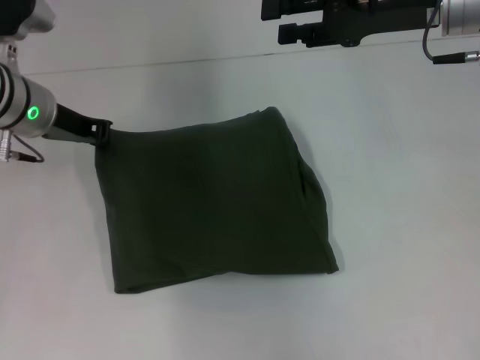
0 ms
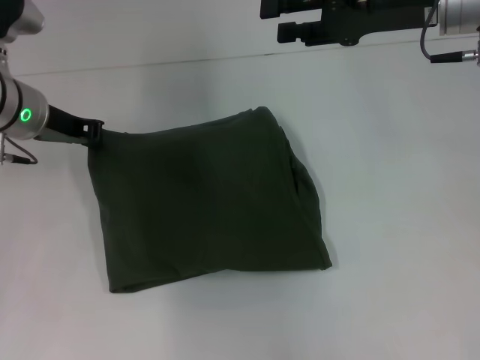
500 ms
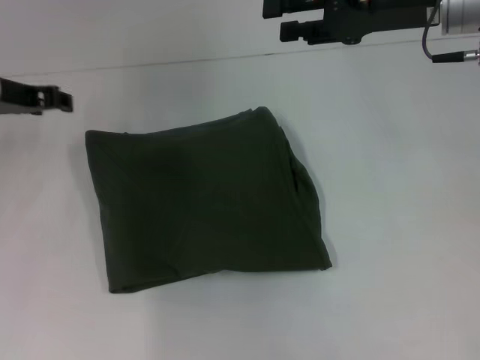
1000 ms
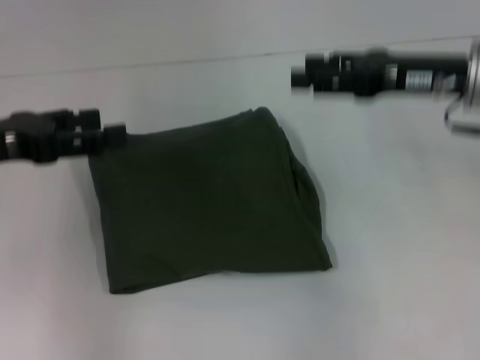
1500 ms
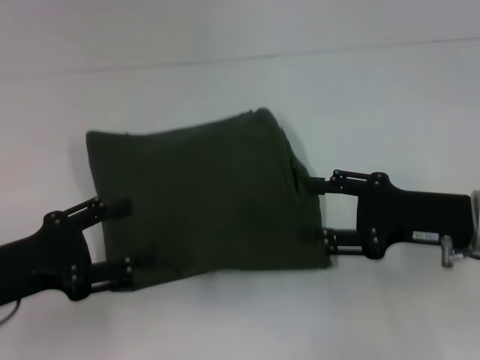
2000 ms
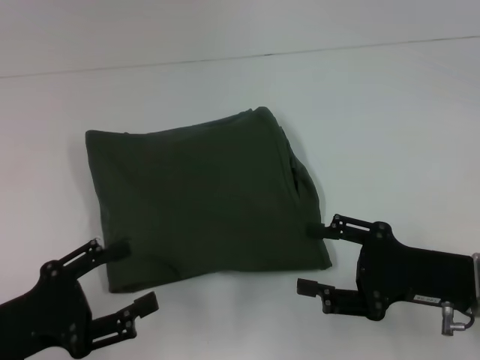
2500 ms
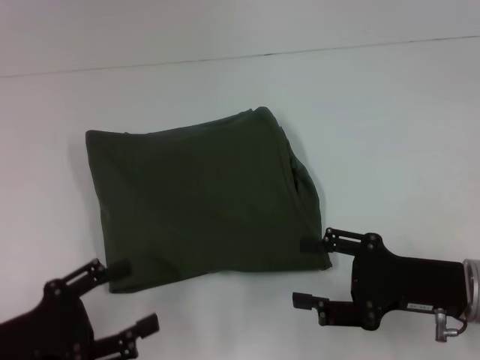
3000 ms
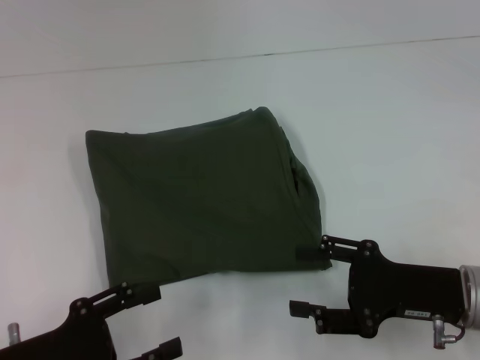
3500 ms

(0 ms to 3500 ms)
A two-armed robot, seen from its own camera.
0 ms - 2000 ms: The right gripper moves backward and downward, approximately 20 cm. Meanwhile the left gripper is displaced backward by roughly 20 cm, and opens.
2000 ms - 3500 ms: The left gripper shifts about 10 cm backward and downward; the right gripper changes place by some 5 cm.

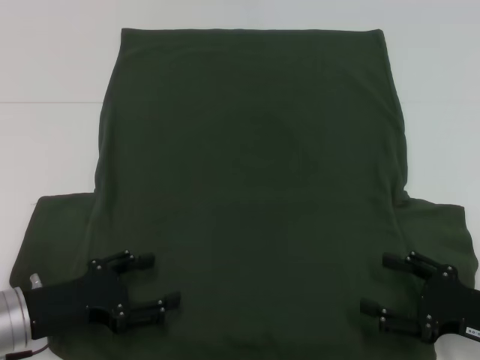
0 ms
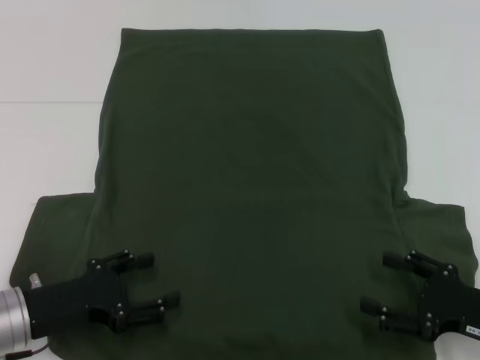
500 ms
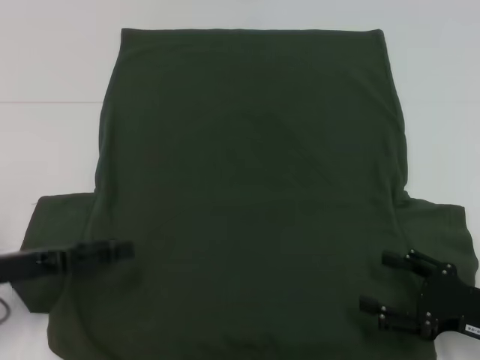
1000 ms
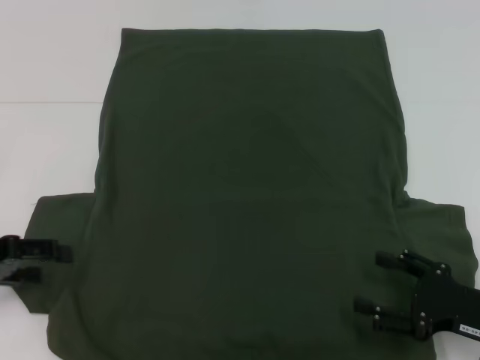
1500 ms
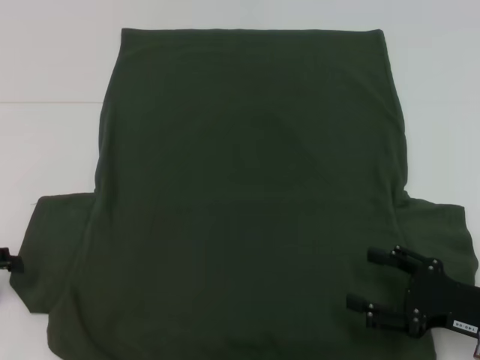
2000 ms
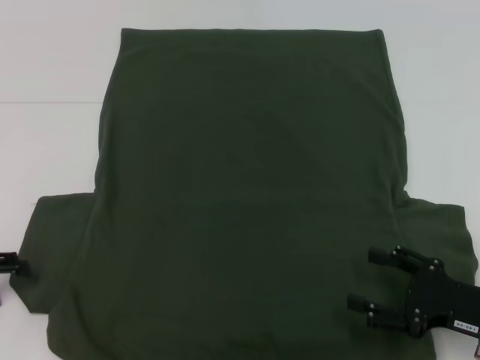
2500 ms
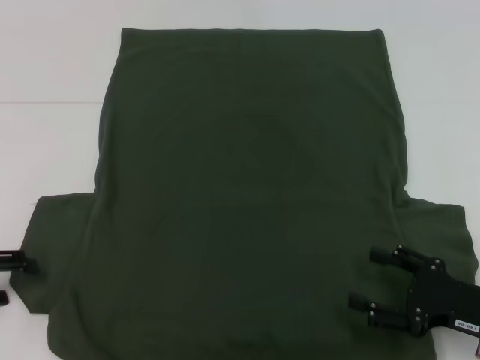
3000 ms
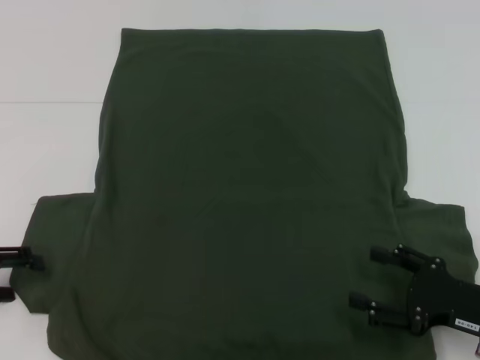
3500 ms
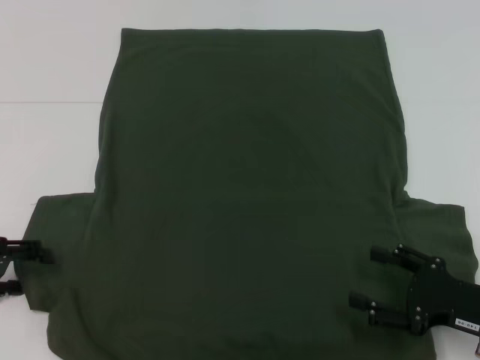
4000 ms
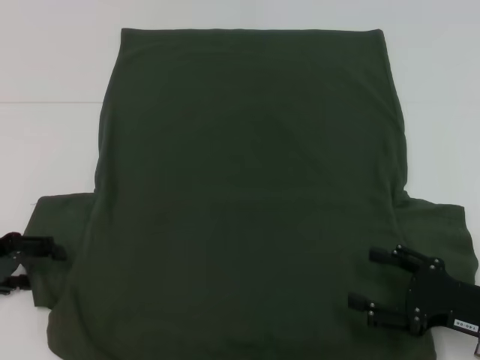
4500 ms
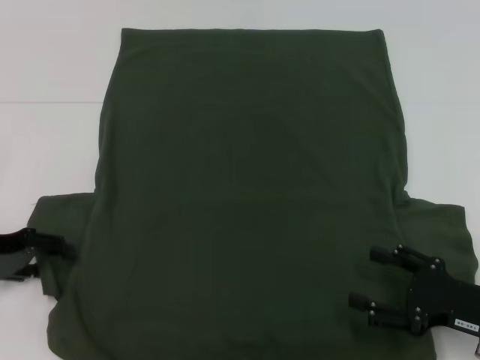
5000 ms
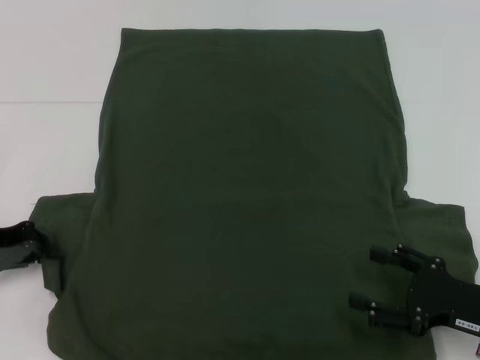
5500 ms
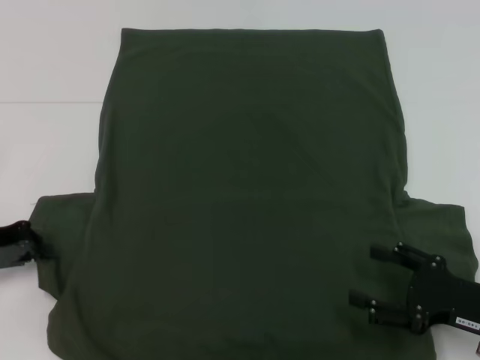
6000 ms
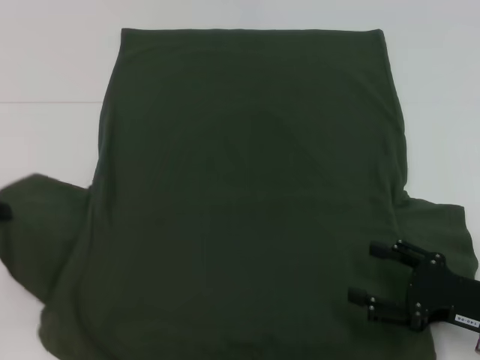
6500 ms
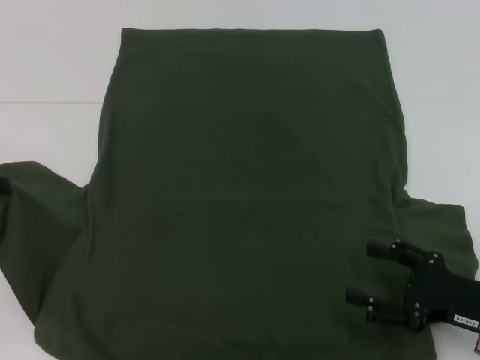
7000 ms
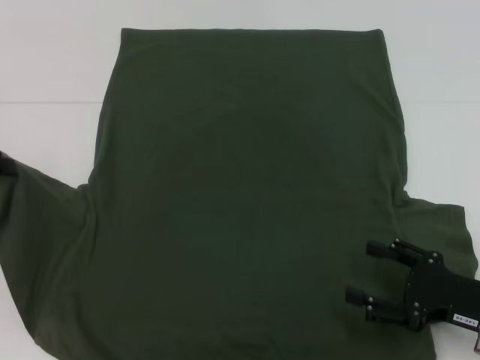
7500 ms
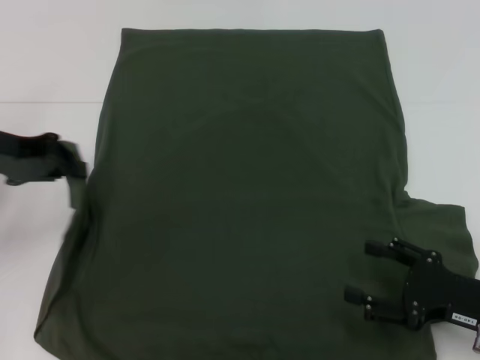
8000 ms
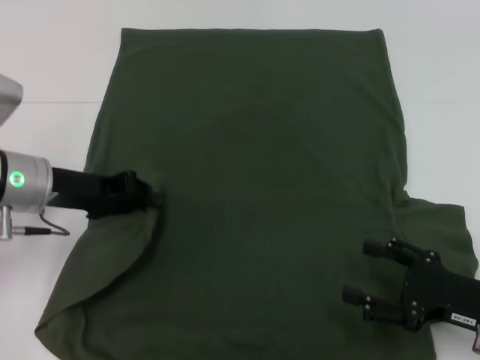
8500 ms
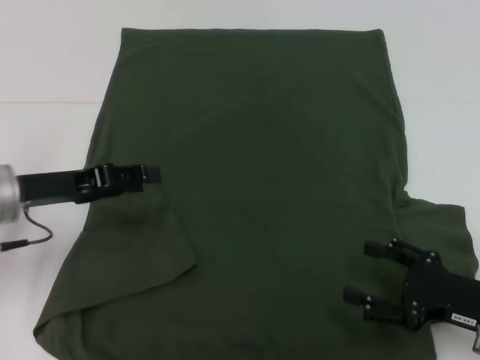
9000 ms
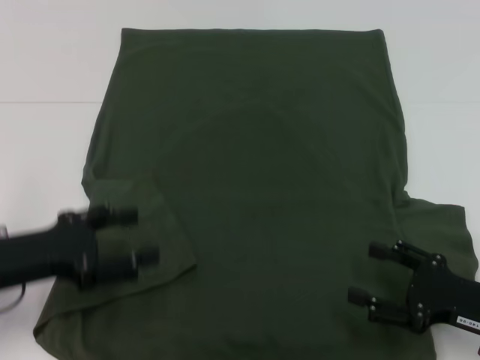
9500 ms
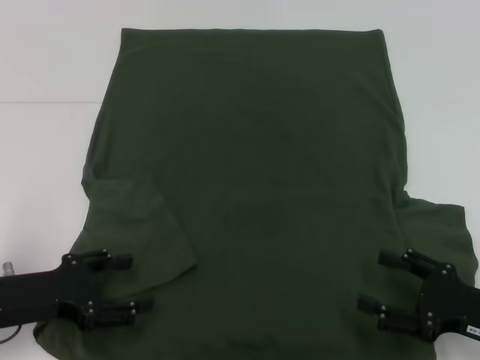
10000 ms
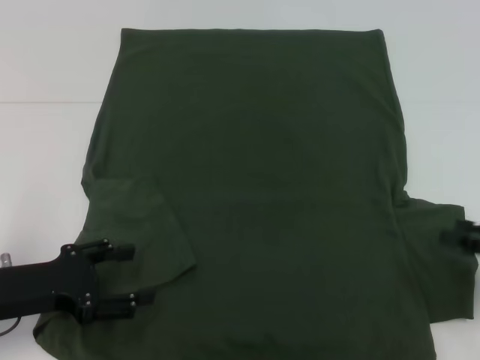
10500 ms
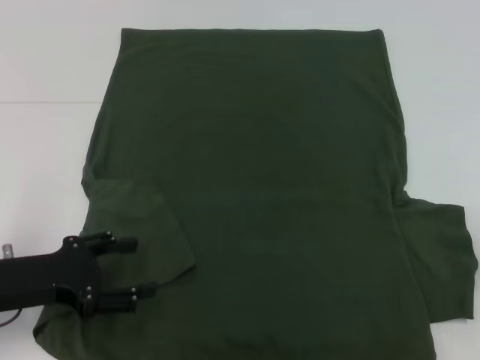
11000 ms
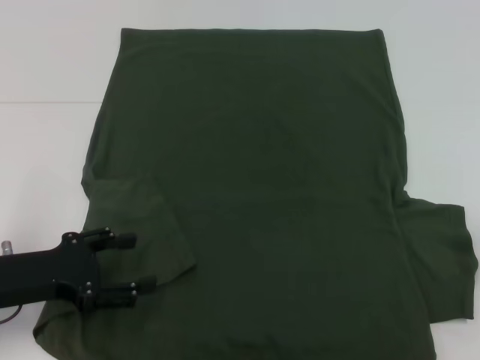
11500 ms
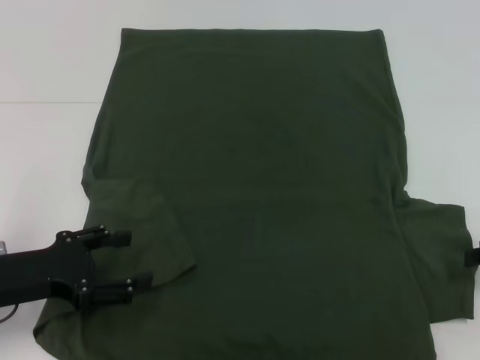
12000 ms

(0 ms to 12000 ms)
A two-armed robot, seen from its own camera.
Step, 0 ms - 8500 ms: Fold the bottom left sleeve with your left hand.
0 ms - 2000 ms: The left gripper goes approximately 15 cm to the left and upward.
2000 ms - 4000 ms: The grippers stay close to where they were, moving slightly.
4000 ms - 6000 ms: The left gripper closes its fingers.
6000 ms - 8000 ms: The left gripper shifts about 10 cm upward and forward.
8000 ms - 10000 ms: The left gripper travels backward and downward by roughly 15 cm, and opens.
10000 ms - 12000 ms: The right gripper heads to the right, upward and forward, covering about 15 cm.

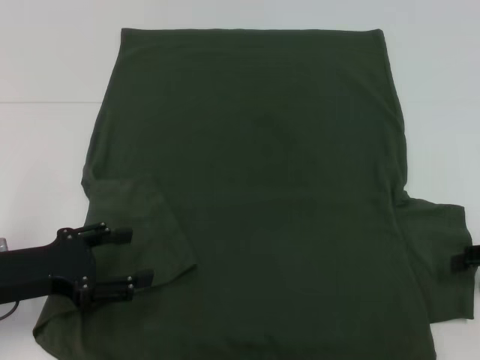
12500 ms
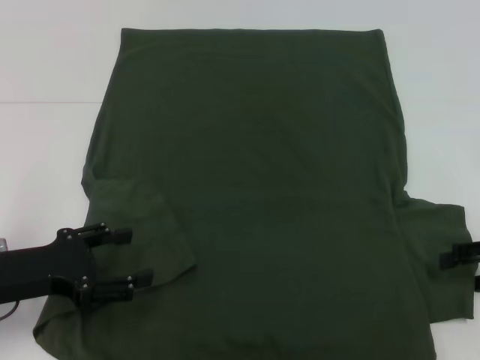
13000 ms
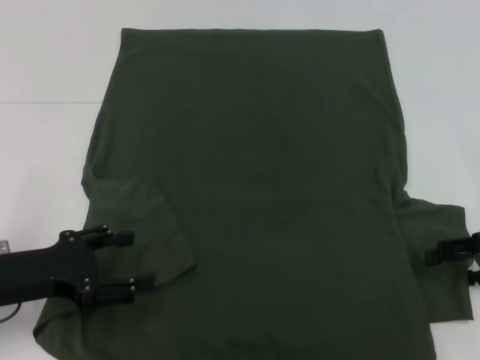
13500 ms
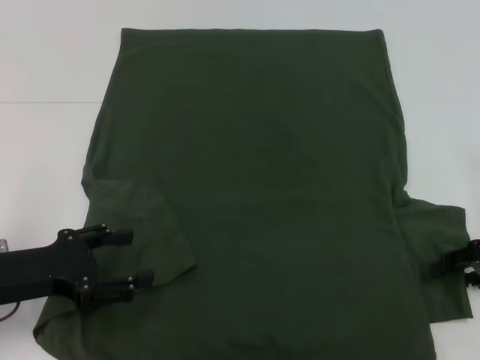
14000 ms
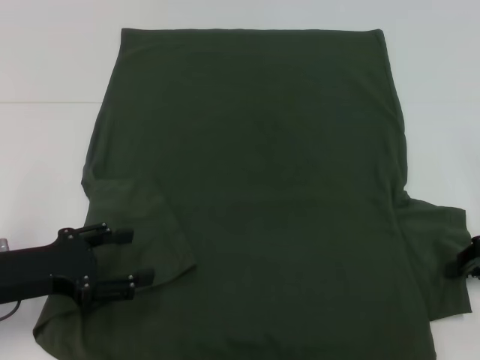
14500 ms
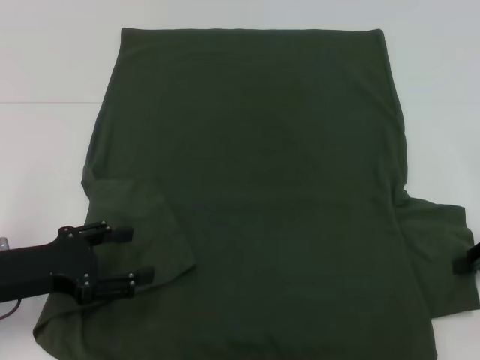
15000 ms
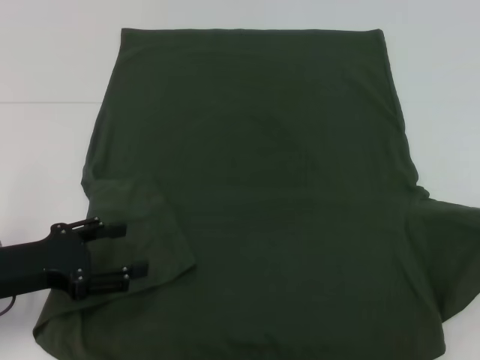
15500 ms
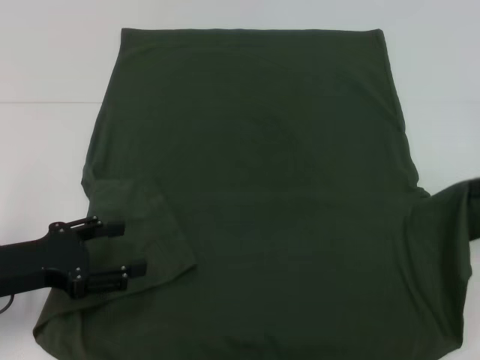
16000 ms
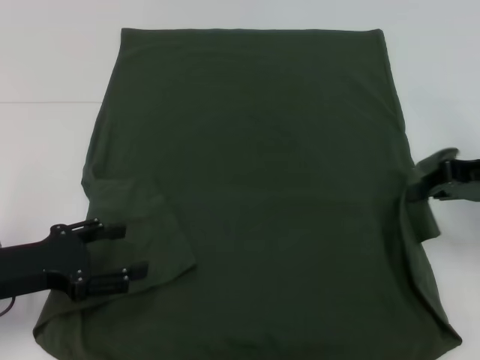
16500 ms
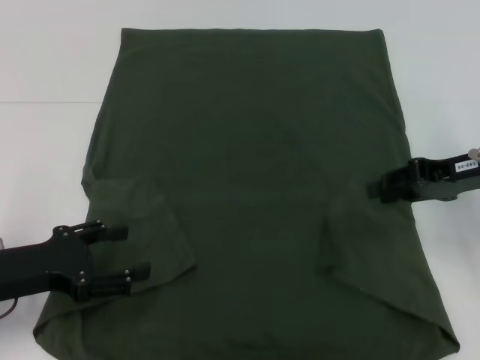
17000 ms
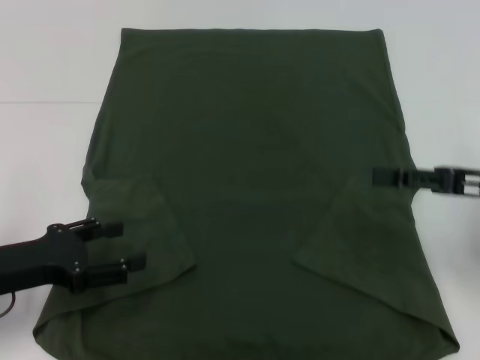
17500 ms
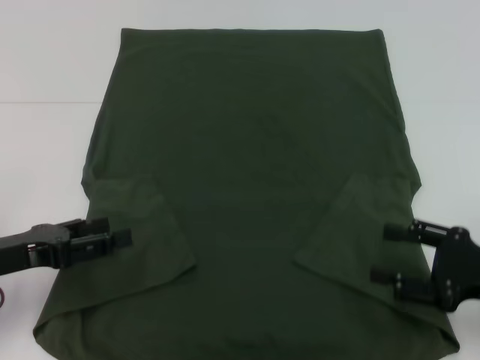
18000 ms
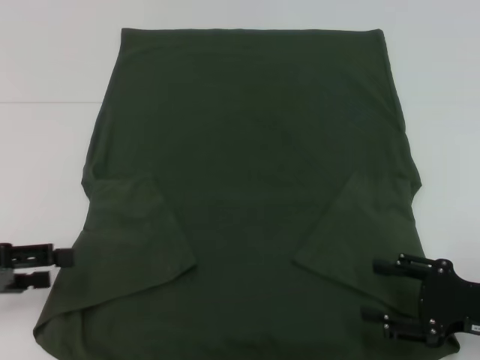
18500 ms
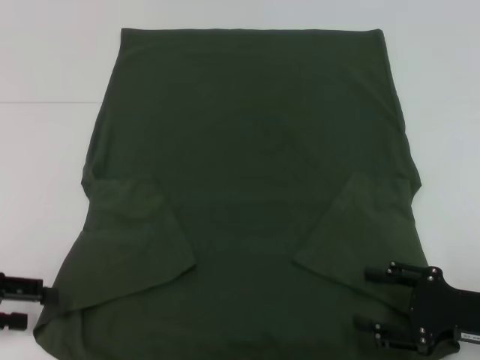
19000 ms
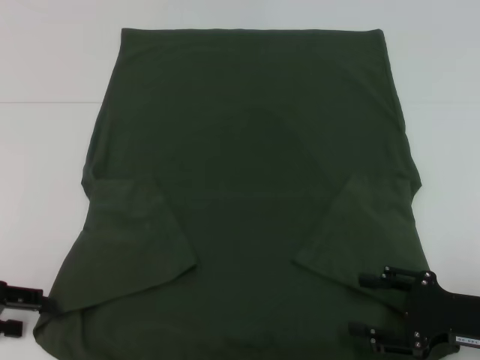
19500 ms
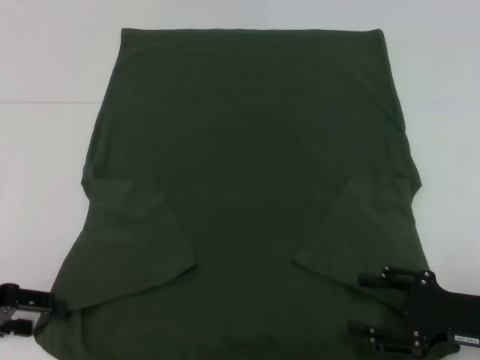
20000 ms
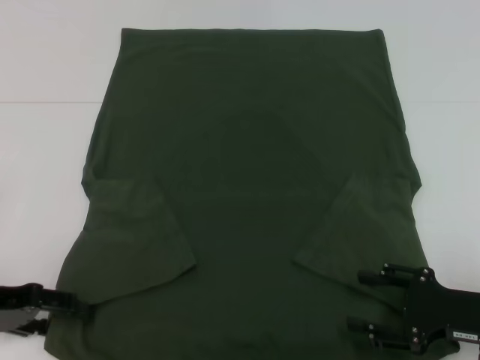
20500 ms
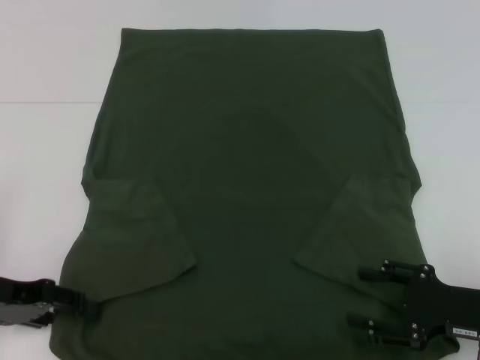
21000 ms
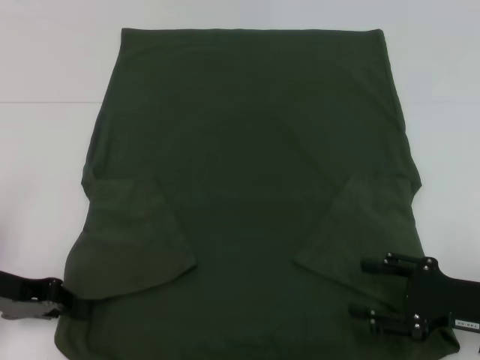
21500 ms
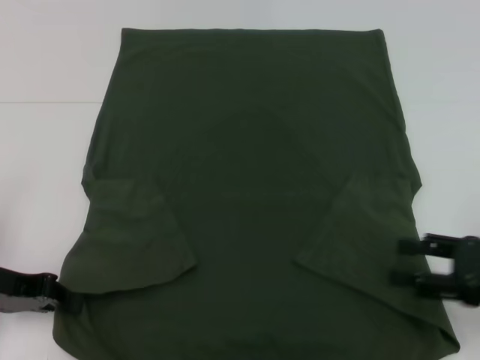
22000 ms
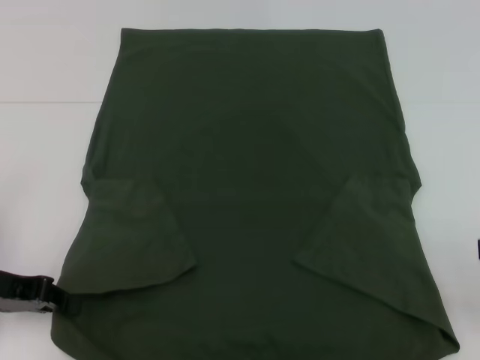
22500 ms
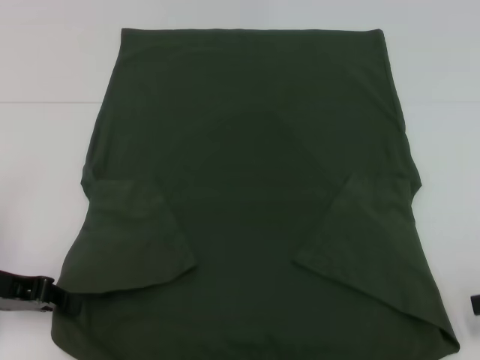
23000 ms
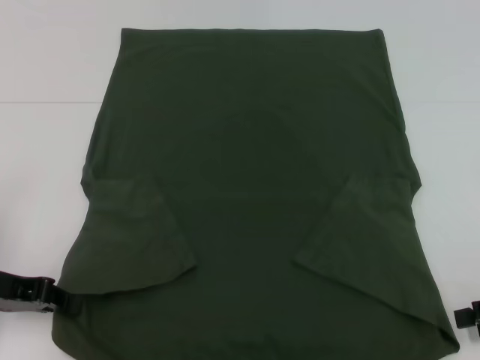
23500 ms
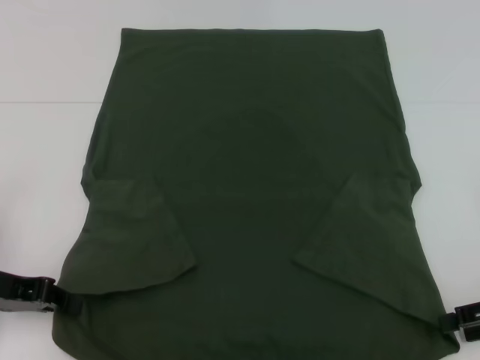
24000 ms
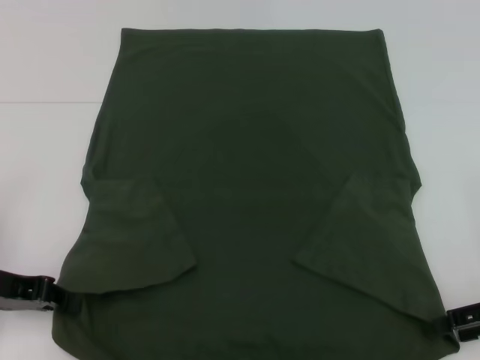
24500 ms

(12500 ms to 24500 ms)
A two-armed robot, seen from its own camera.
Step, 12500 ms - 17000 ms: Fold the bottom right sleeve with your right hand.
Step, 17500 ms - 21500 ms: Grab the bottom left corner with your left hand.
14500 ms - 16500 ms: The right gripper travels upward by about 5 cm.
16500 ms - 18500 ms: The left gripper travels to the left by roughly 5 cm. Meanwhile the right gripper heads backward and downward, covering about 15 cm, and opens up.
18500 ms - 20500 ms: The grippers move only a little.
20500 ms - 22500 ms: The right gripper goes roughly 15 cm upward and to the right. Meanwhile the left gripper closes its fingers.
22500 ms - 24500 ms: The right gripper travels downward by approximately 5 cm.
